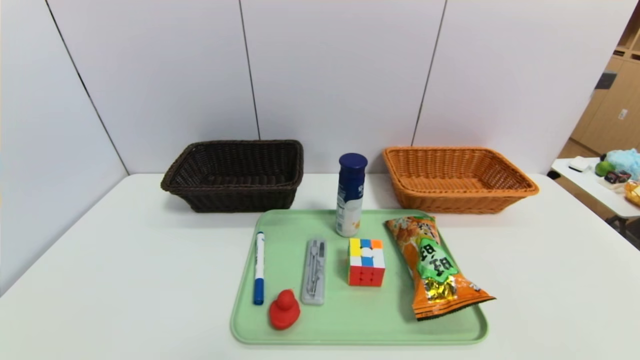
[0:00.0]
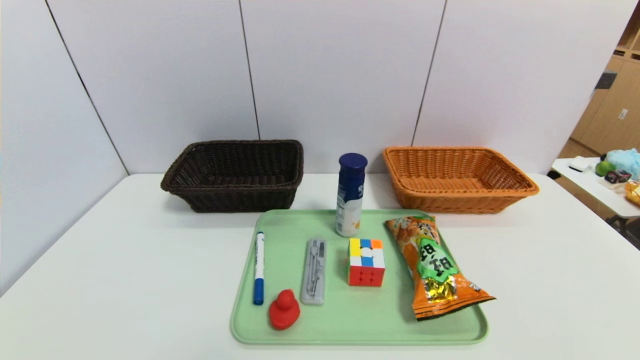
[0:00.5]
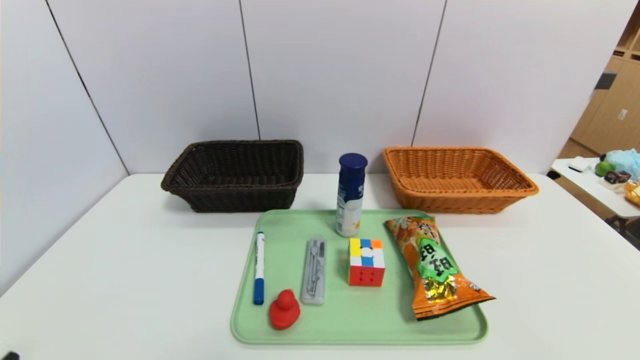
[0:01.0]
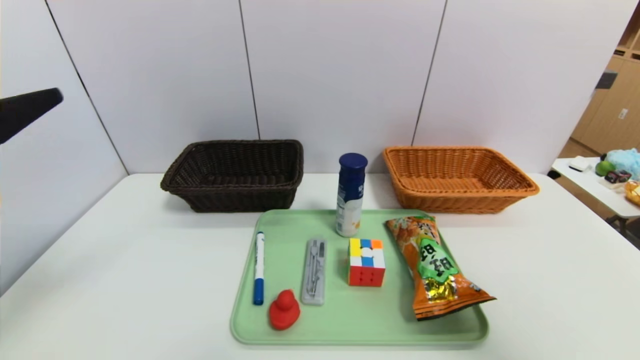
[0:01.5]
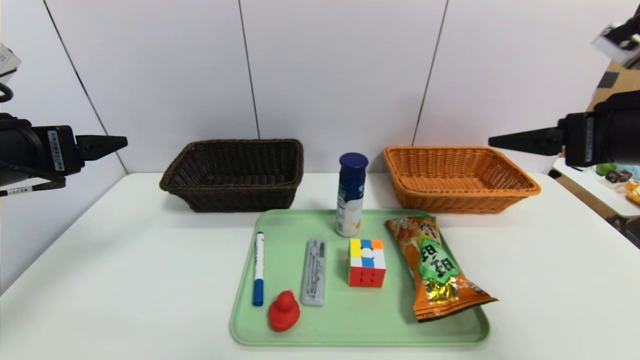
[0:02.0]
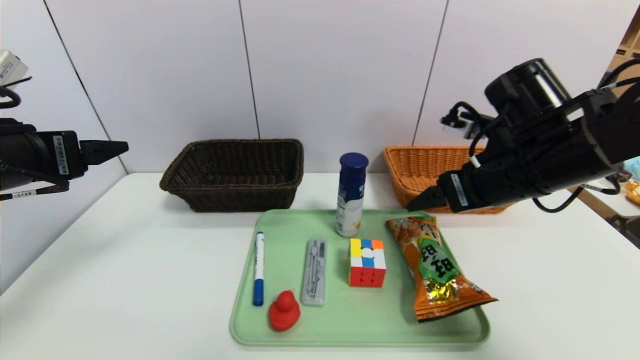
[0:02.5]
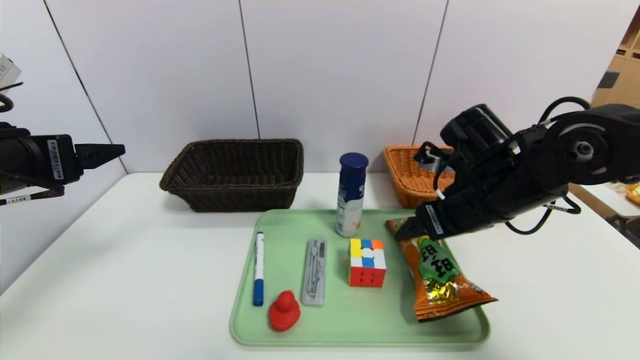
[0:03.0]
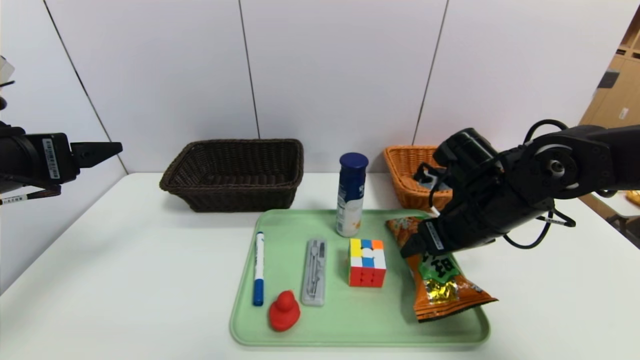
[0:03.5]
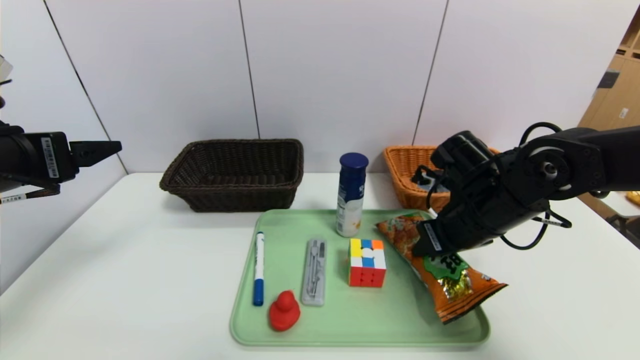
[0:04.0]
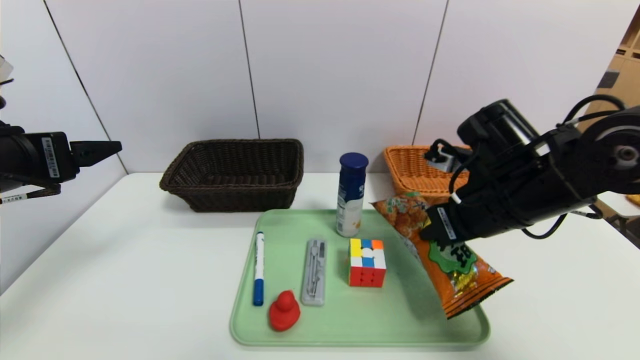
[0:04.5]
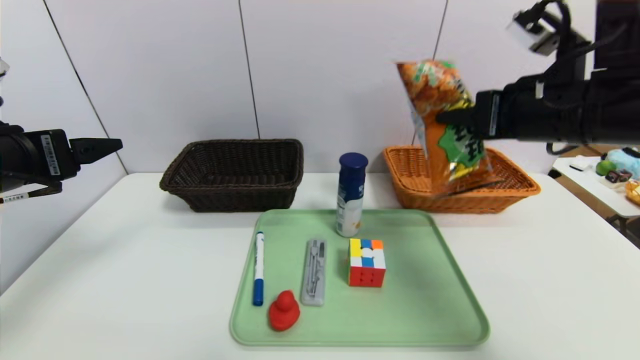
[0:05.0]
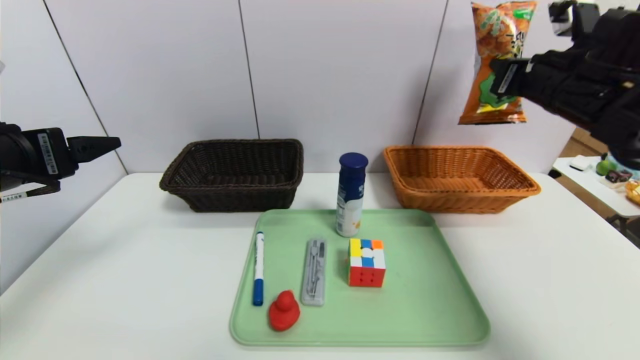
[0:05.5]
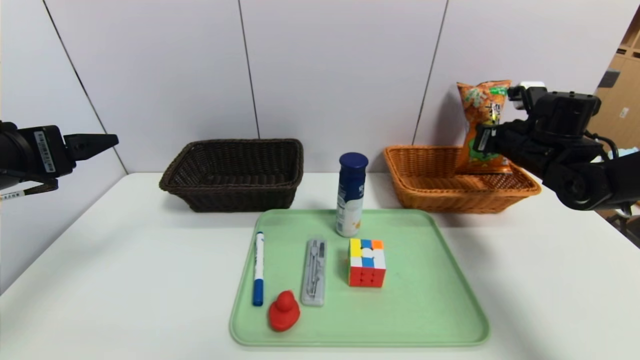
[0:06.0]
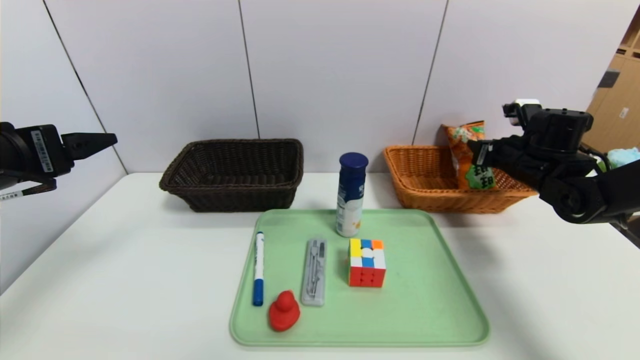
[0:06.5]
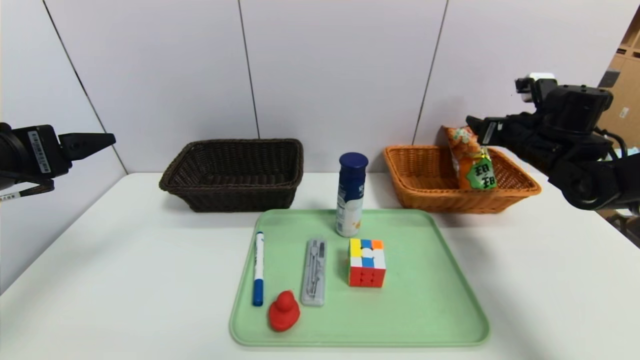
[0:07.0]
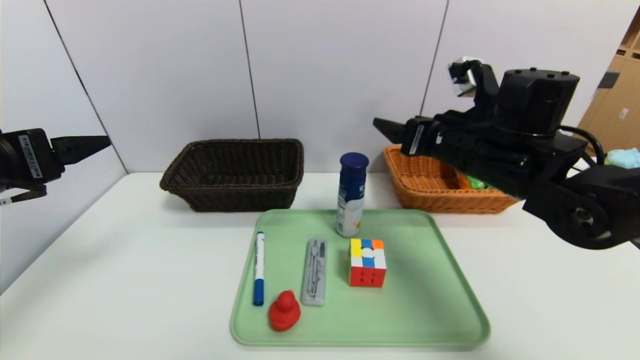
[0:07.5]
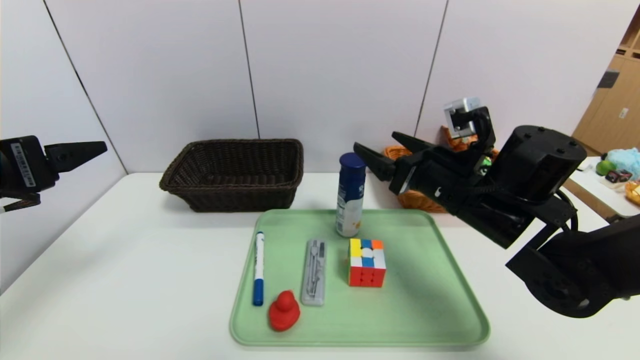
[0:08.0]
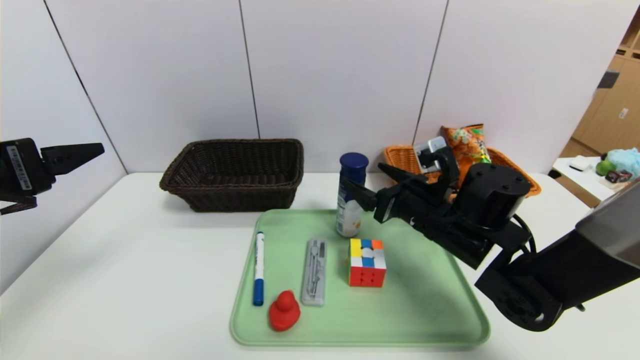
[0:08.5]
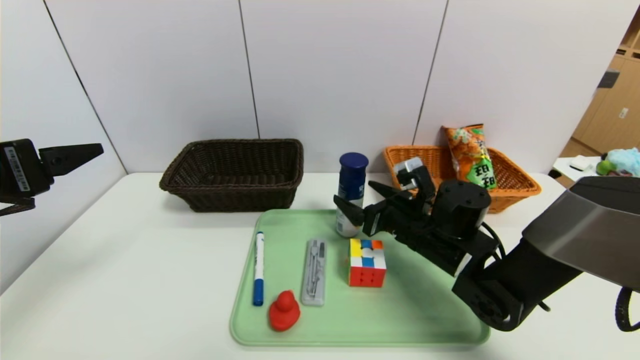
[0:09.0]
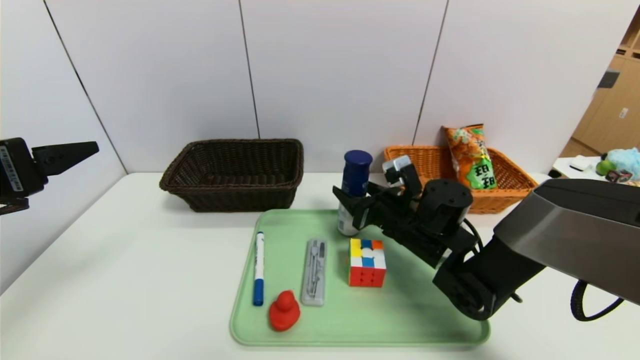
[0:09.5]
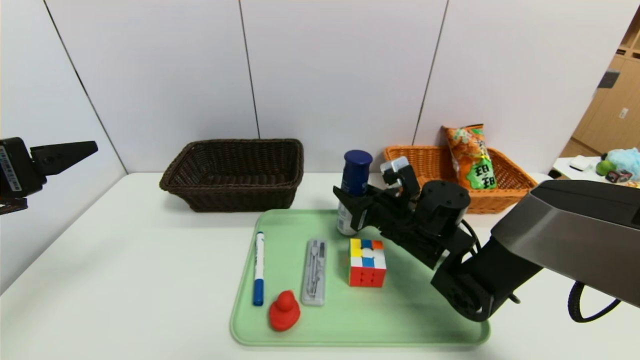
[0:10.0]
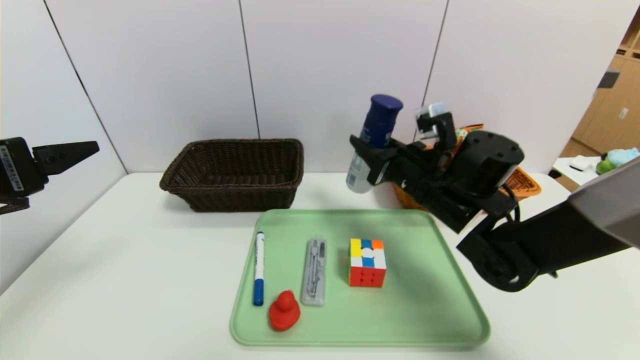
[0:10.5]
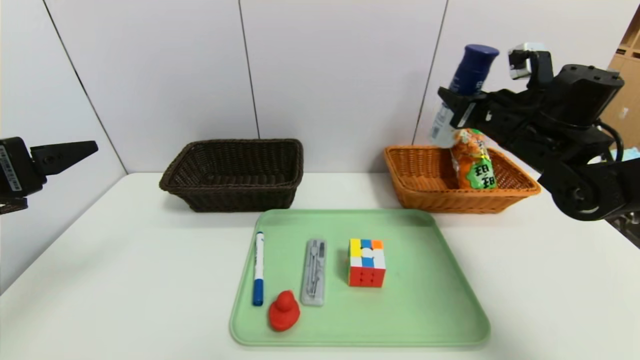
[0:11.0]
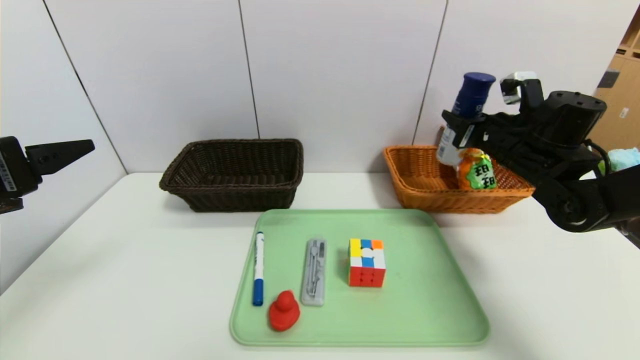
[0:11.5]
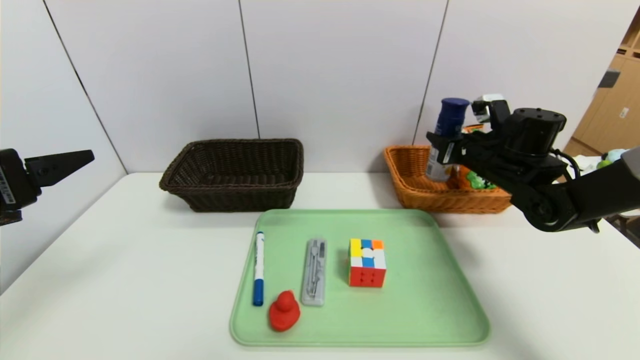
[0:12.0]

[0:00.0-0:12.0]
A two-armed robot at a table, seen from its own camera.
Task of the whole recording: place the food in the right basket with the right gripper, and place the non food items in the left basket with the left gripper.
Step, 0:00.0 to 0:07.0: Grasp the cookie and put it in the right basket.
0:00.0 to 0:02.0: Both grippers travel together forward and upward, roughly 30 cm.
0:02.0 to 0:04.0: The right gripper moves downward, to the left and forward, roughly 15 cm, and closes up.
0:04.0 to 0:06.0: The right gripper is displaced to the right and forward by some 15 cm, and moves roughly 15 cm upward and comes back.
0:06.0 to 0:08.0: The right gripper heads to the left and backward, covering some 20 cm, and opens its fingers.
0:08.0 to 0:10.0: The right gripper moves downward, roughly 10 cm, and closes up.
0:10.0 to 0:12.0: The right gripper is displaced to the right, upward and forward by roughly 20 cm.

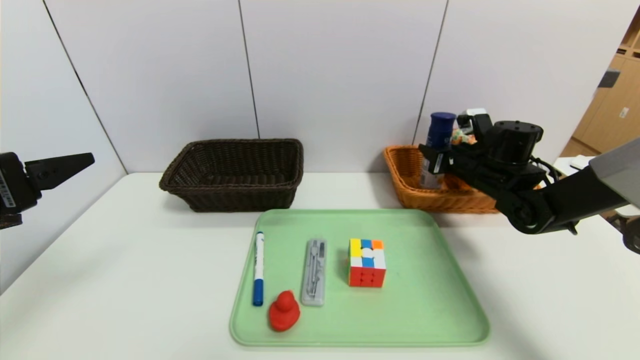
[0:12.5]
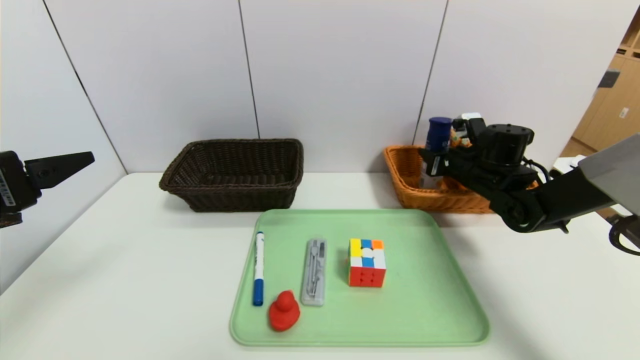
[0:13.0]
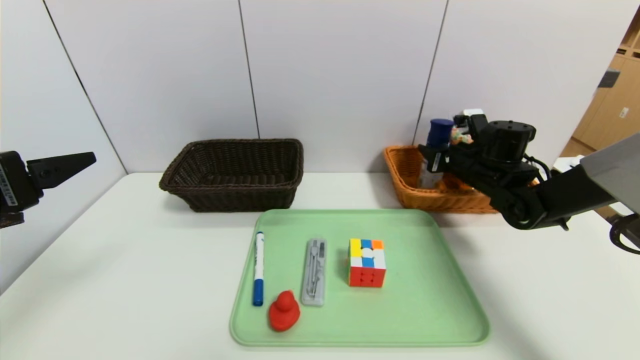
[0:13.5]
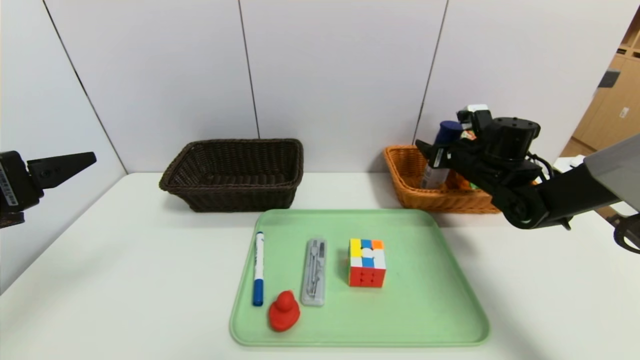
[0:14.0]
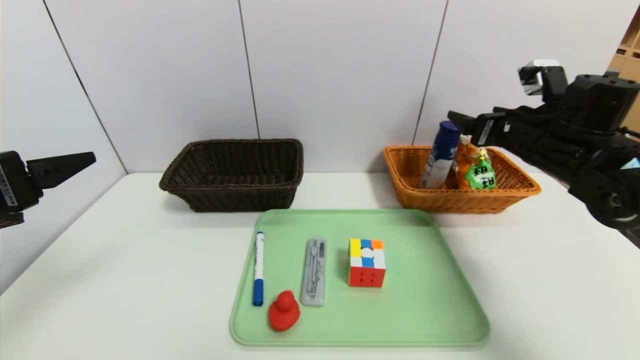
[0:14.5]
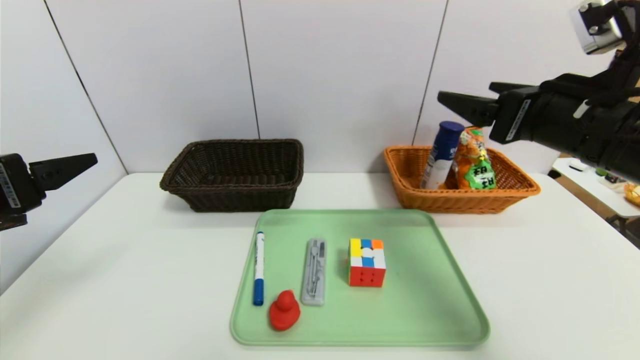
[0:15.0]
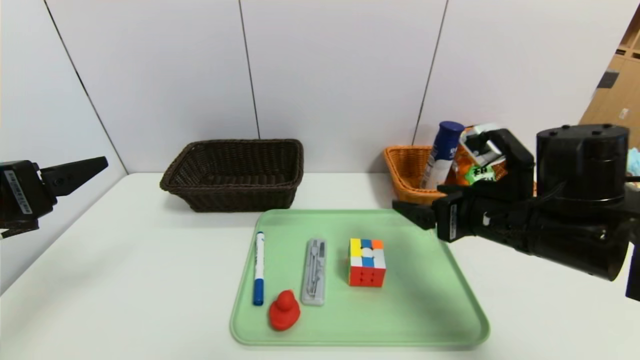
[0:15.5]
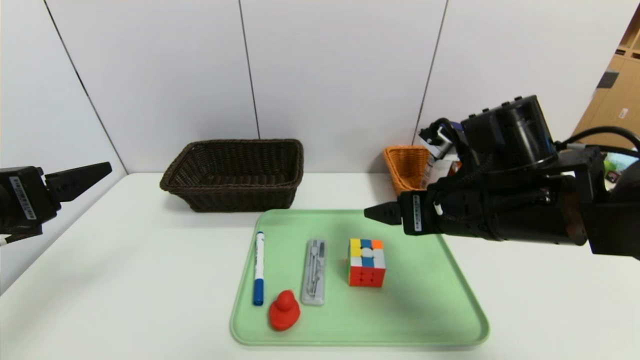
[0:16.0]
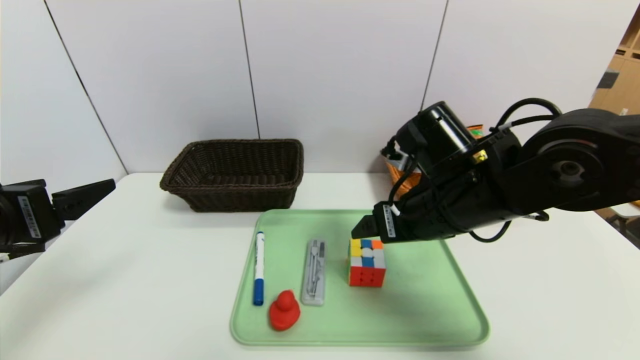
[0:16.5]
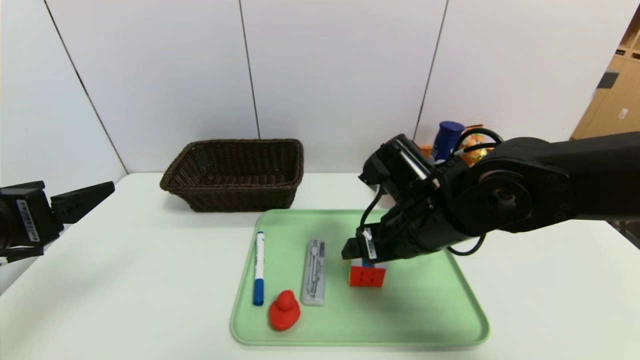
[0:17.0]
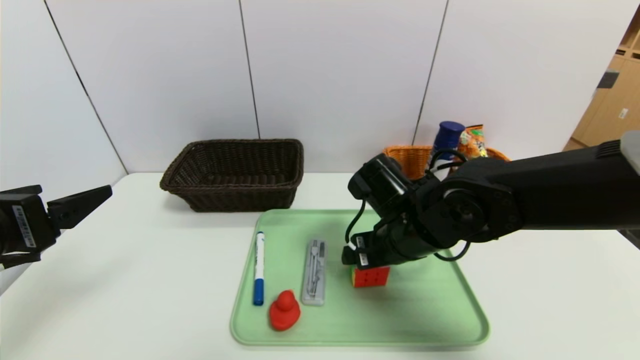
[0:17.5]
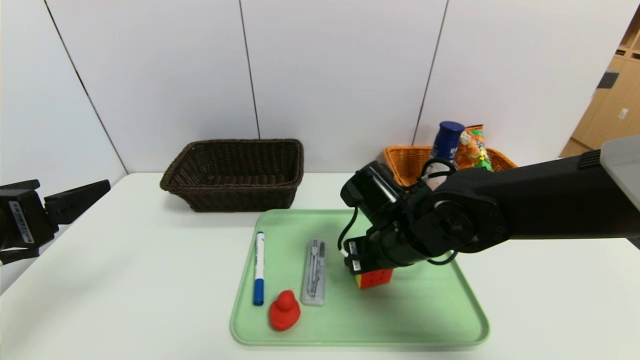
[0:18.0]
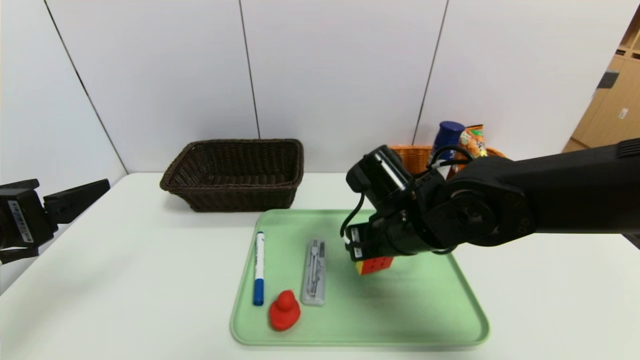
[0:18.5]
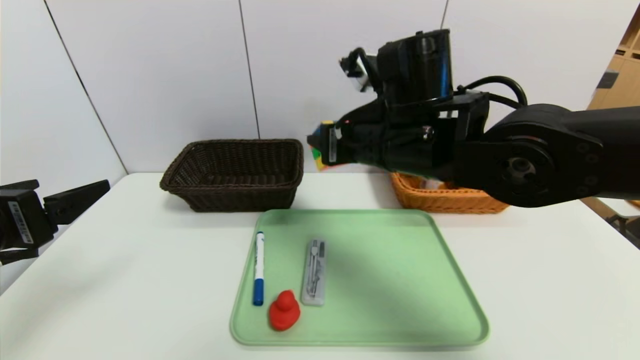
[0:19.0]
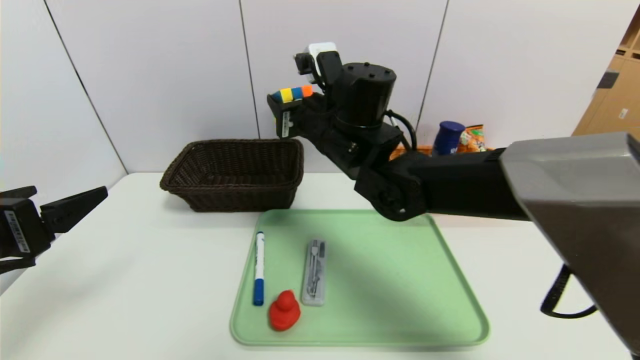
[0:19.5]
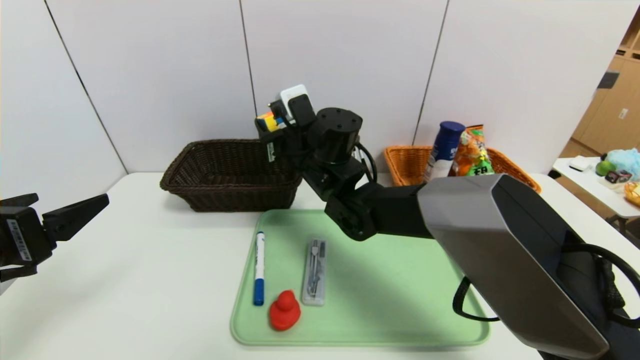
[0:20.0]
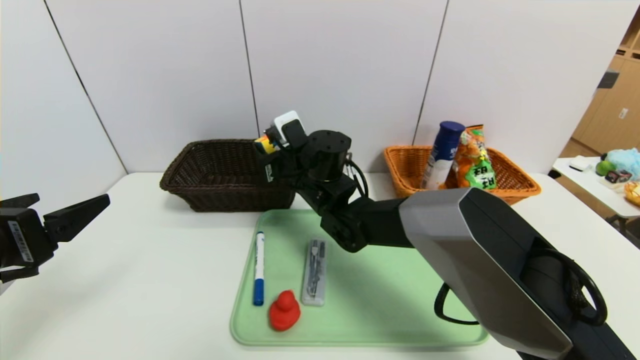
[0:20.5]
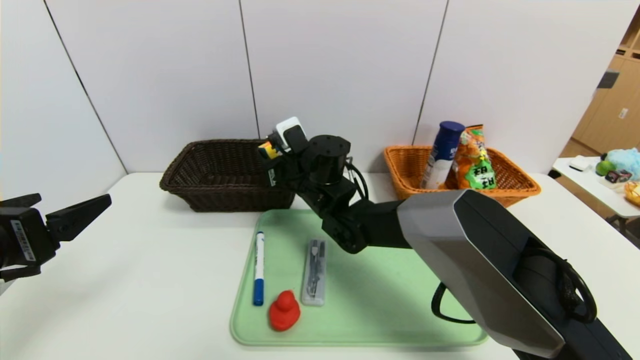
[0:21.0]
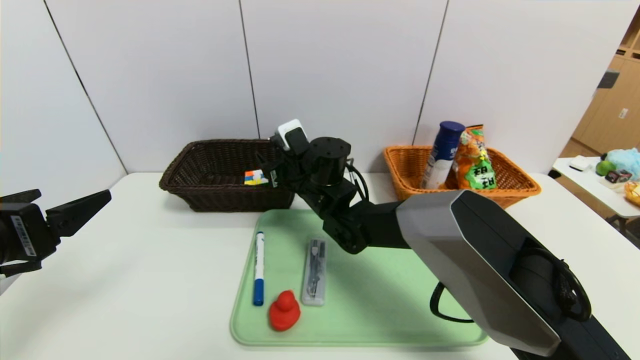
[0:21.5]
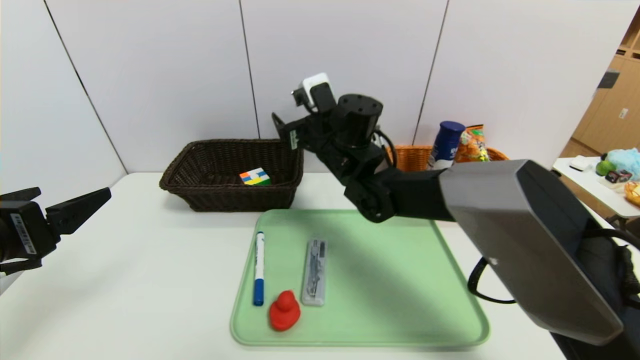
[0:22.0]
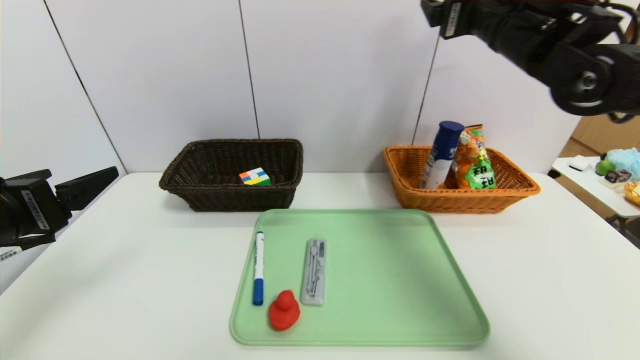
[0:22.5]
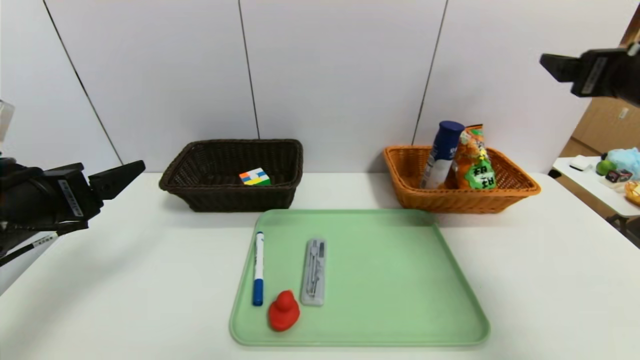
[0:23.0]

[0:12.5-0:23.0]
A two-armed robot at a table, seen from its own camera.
Task of the whole recording: place the food in the right basket with the right gripper, and place the non food items in the left basket with the left gripper.
Step, 0:12.5 to 0:14.5: Grasp the yogurt and put it in the right basket.
0:12.5 to 0:14.5: The right gripper heads upward and backward, covering approximately 10 cm, and opens.
0:14.5 to 0:16.5: The right gripper travels to the left and backward by about 20 cm.
0:16.5 to 0:19.0: The right gripper heads upward and to the left, covering approximately 10 cm, and closes up.
0:19.0 to 0:21.0: The right gripper moves downward, forward and to the left, approximately 20 cm.
0:21.0 to 0:23.0: The right gripper heads to the right, upward and backward, covering approximately 40 cm, and opens.
